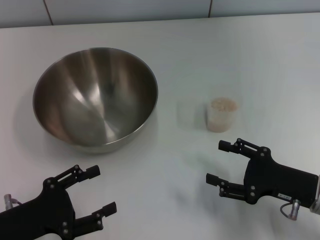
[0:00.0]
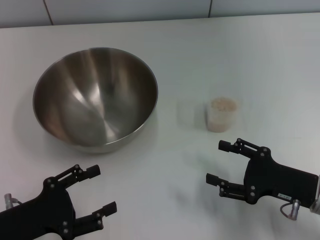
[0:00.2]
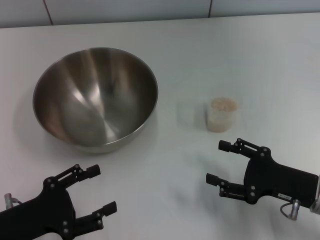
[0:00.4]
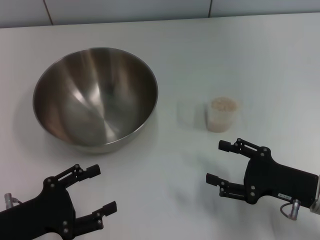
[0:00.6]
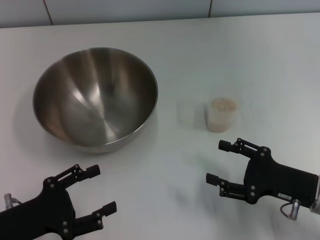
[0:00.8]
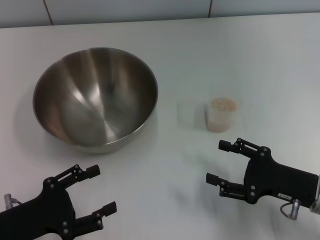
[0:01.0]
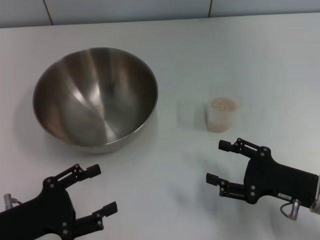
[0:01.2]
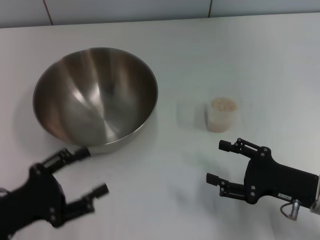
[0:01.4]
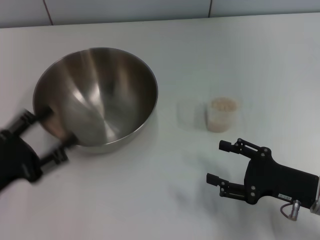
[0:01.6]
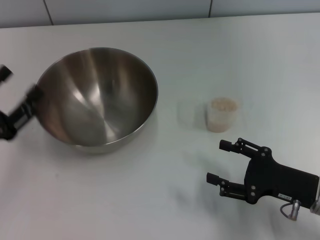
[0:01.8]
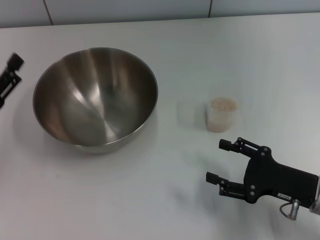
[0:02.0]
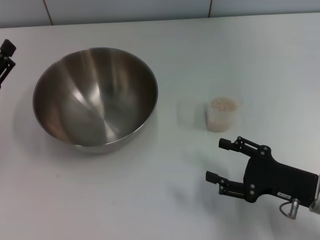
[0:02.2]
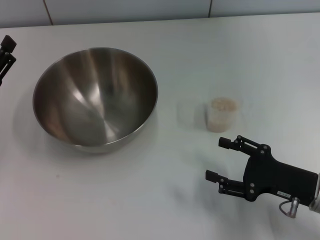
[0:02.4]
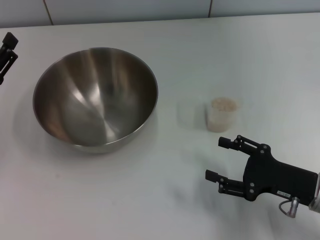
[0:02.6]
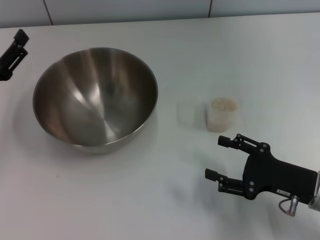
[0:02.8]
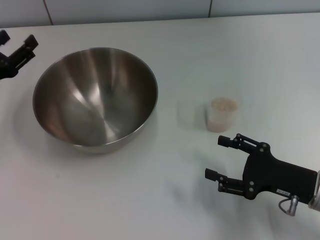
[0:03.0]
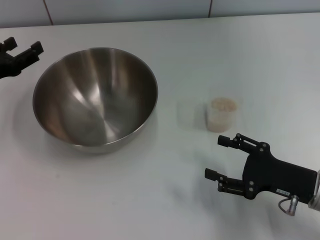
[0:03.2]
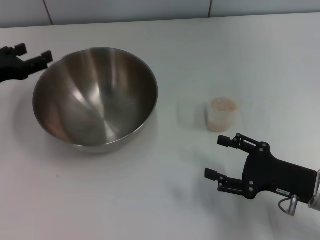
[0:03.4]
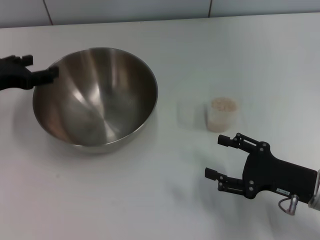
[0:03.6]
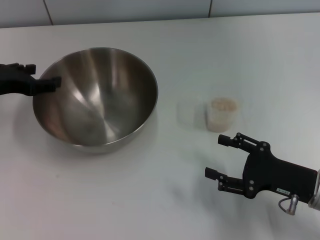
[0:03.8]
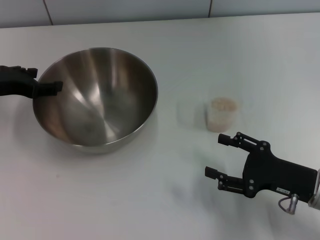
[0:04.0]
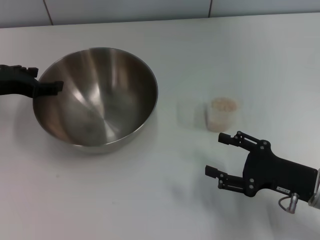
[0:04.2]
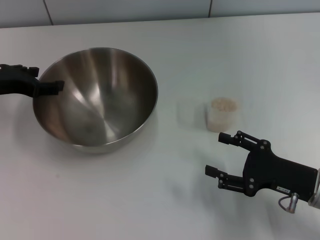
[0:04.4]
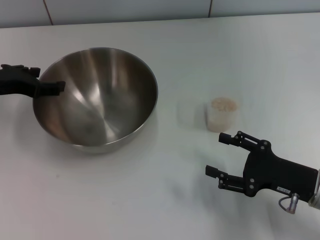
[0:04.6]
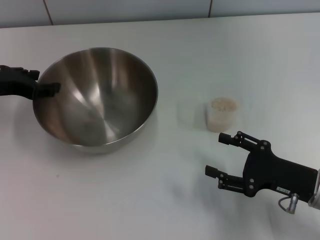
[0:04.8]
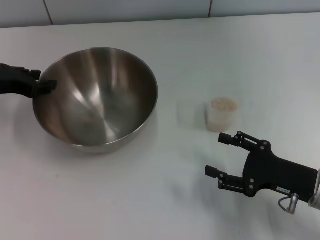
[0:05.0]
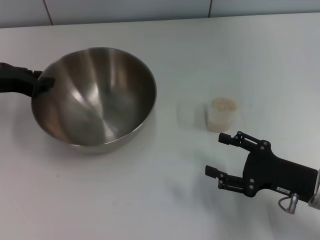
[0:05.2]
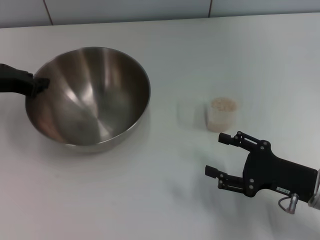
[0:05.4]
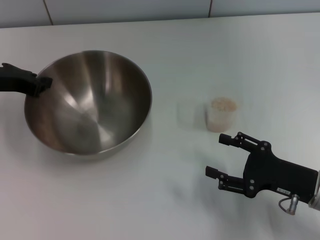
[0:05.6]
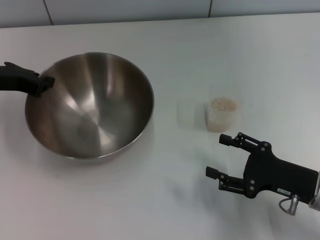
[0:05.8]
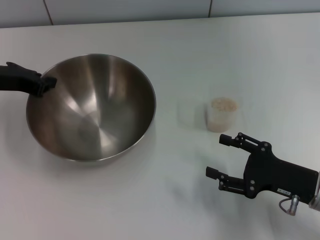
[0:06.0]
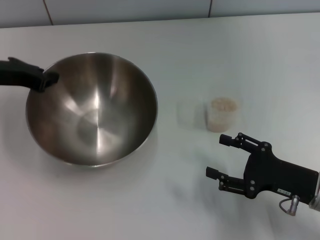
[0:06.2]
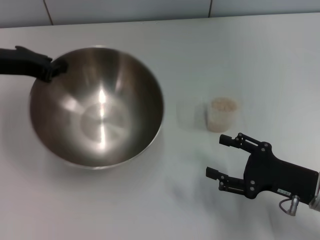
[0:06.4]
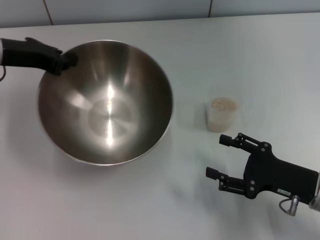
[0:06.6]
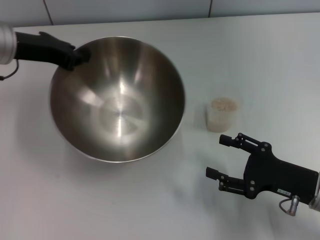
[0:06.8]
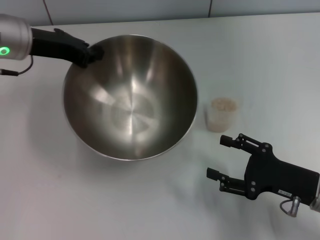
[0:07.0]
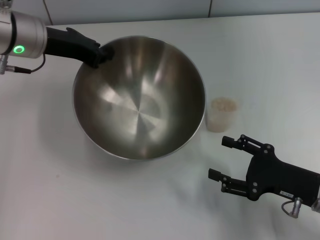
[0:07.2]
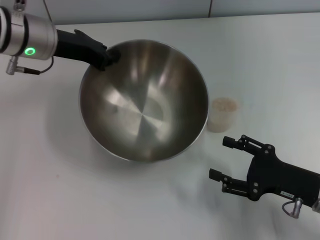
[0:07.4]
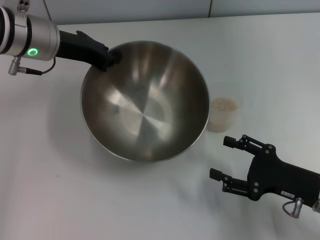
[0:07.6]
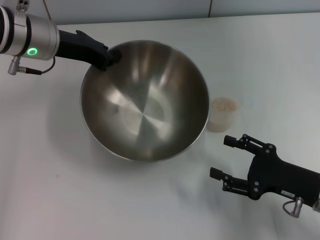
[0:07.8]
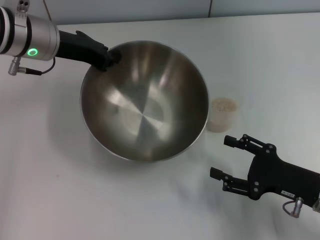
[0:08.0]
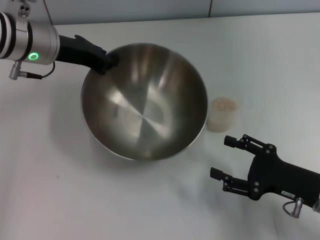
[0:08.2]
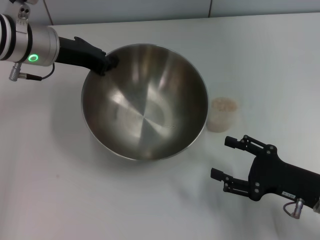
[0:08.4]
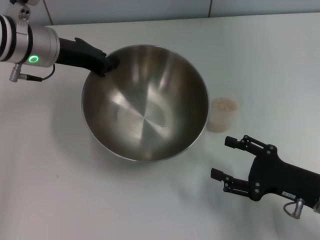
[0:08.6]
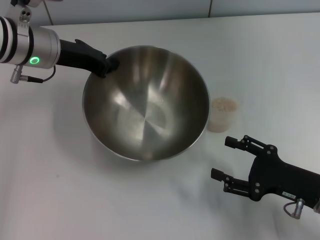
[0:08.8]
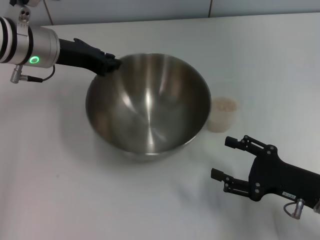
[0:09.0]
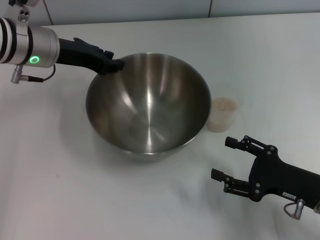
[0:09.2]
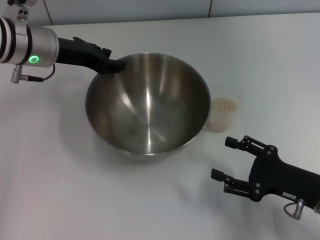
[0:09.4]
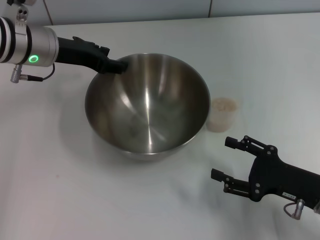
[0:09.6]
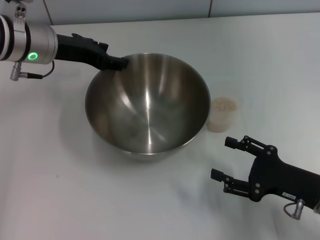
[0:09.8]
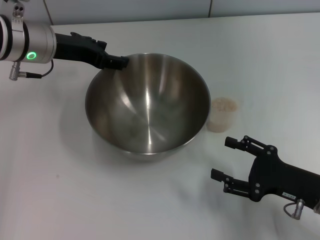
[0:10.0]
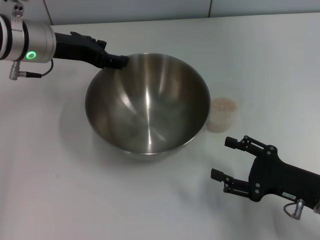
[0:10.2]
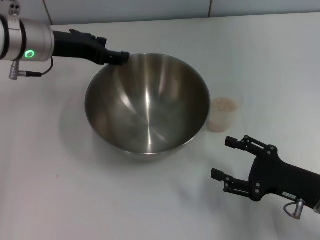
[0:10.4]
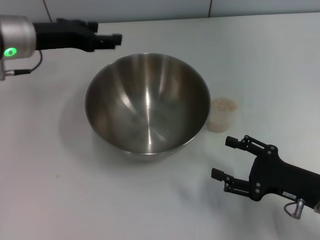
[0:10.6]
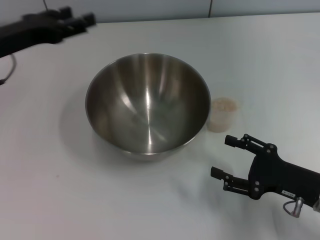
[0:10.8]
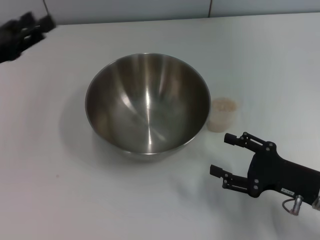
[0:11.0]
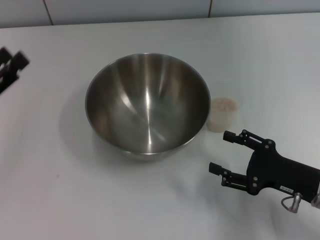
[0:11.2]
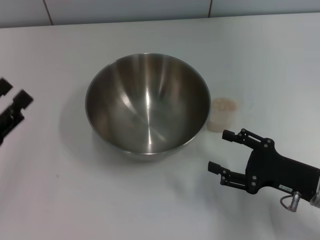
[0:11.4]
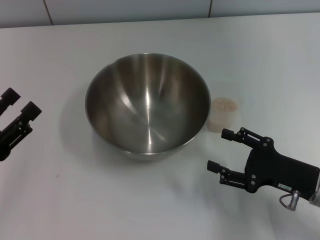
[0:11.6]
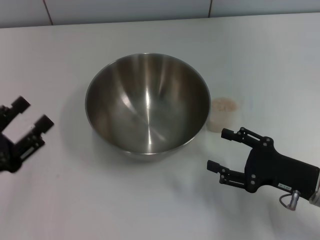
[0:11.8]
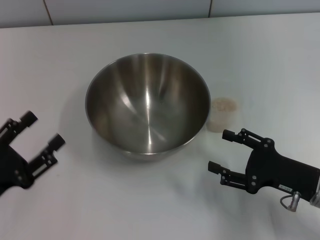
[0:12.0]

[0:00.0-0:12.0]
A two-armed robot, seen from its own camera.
Task of the whole recording: Place the bowl in the middle of the table with one hand and pour the rice from the grain cup into it with the other hand.
Step, 0:00.0 to 0:06.4: Pick up the bowl with the left gripper.
Step, 0:06.6 to 0:10.6: Place the bowl in the center of view with the left gripper.
0:00.0 to 0:01.6: The grippers stay close to where they were, moving slightly.
0:01.6 to 0:03.0: The left gripper heads forward, covering about 15 cm.
0:03.0 to 0:04.4: The left gripper changes place by some 5 cm.
0:04.4 to 0:06.0: The left gripper closes up.
0:06.0 to 0:07.6: The left gripper travels to the right by about 10 cm.
0:07.6 to 0:09.0: There are only small adjustments of the grippers.
0:09.0 to 0:10.4: The left gripper opens up.
0:10.4 to 0:12.0: The left gripper heads backward, downward and to the left, covering approximately 30 cm.

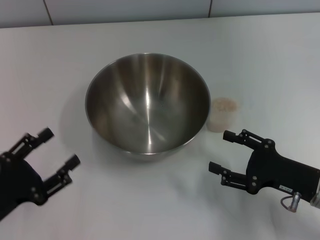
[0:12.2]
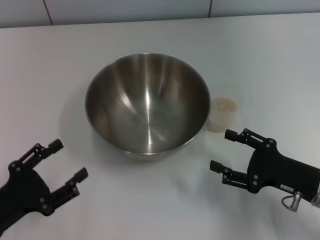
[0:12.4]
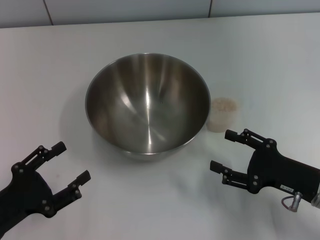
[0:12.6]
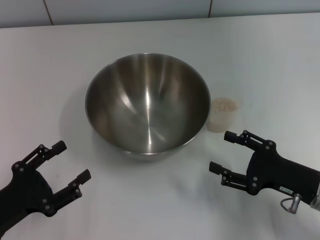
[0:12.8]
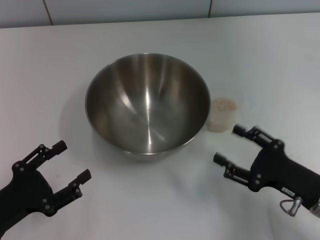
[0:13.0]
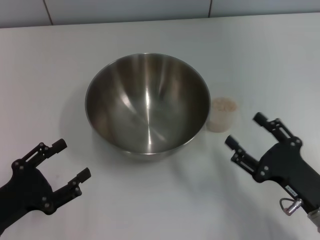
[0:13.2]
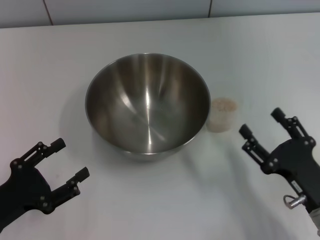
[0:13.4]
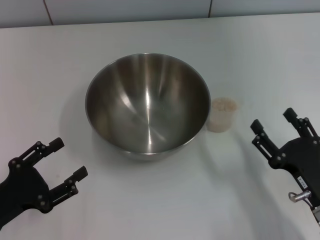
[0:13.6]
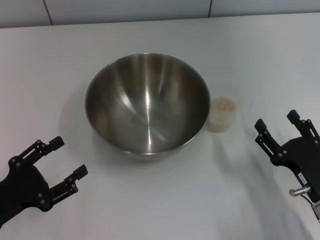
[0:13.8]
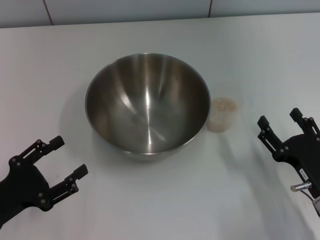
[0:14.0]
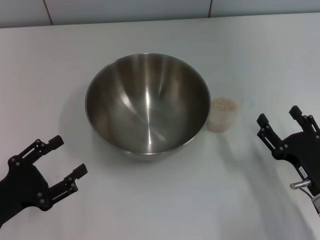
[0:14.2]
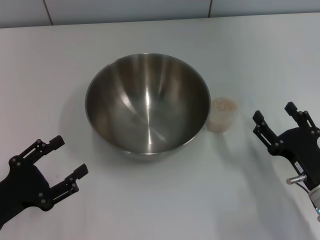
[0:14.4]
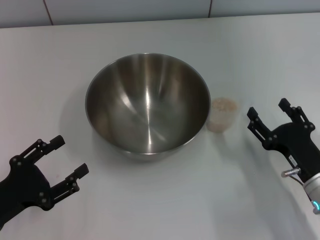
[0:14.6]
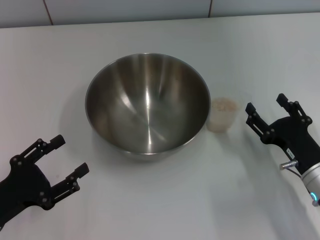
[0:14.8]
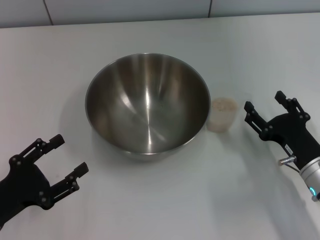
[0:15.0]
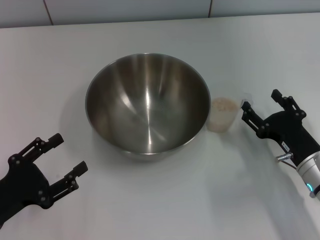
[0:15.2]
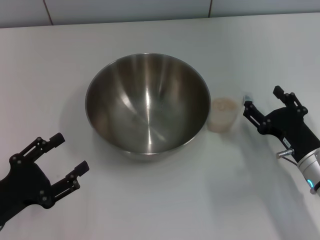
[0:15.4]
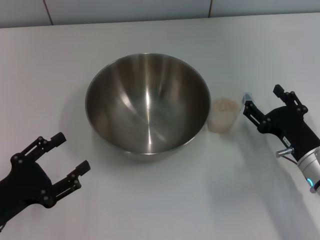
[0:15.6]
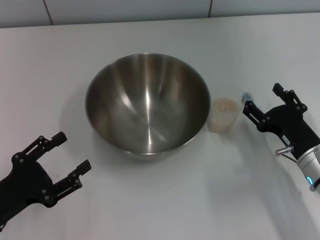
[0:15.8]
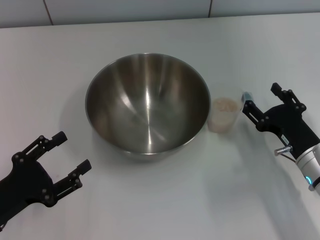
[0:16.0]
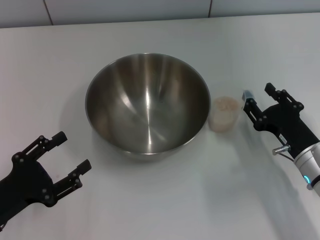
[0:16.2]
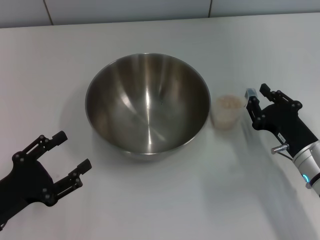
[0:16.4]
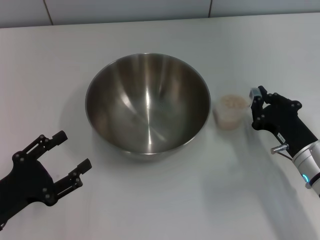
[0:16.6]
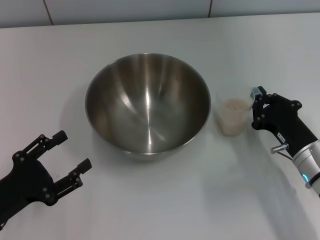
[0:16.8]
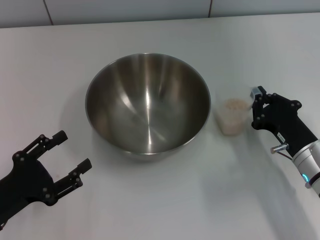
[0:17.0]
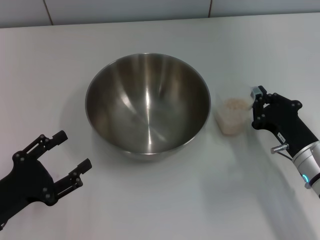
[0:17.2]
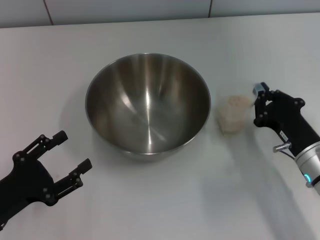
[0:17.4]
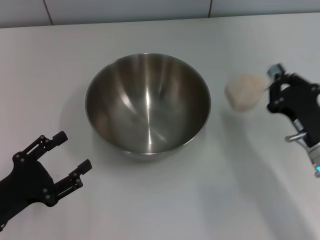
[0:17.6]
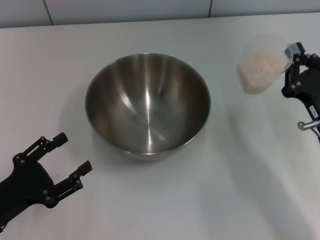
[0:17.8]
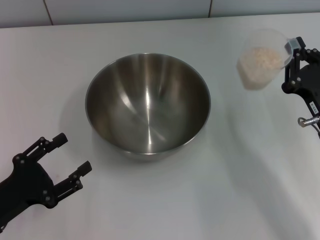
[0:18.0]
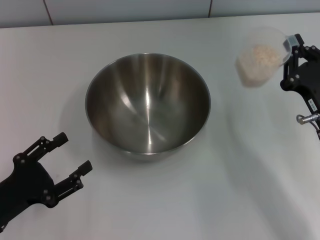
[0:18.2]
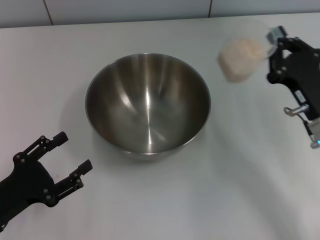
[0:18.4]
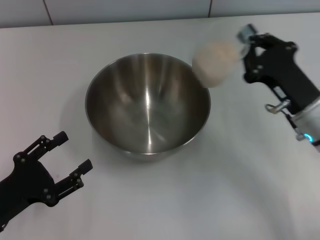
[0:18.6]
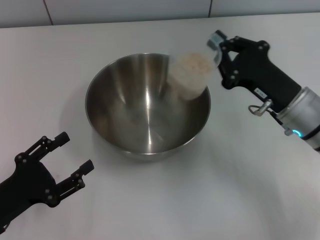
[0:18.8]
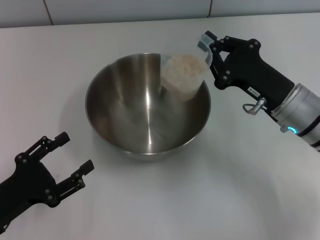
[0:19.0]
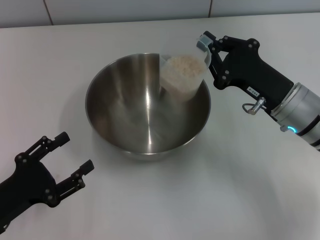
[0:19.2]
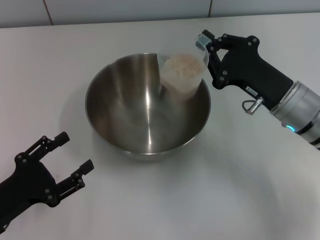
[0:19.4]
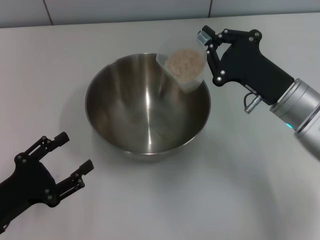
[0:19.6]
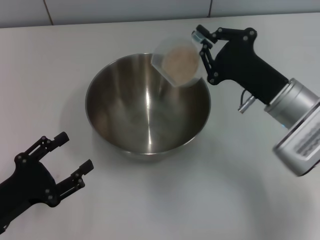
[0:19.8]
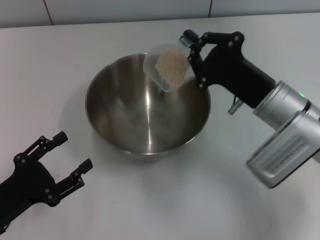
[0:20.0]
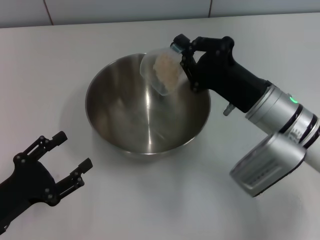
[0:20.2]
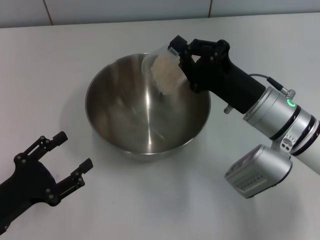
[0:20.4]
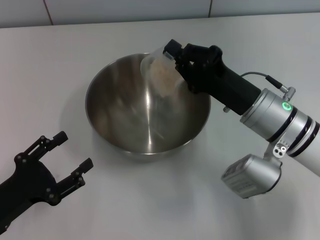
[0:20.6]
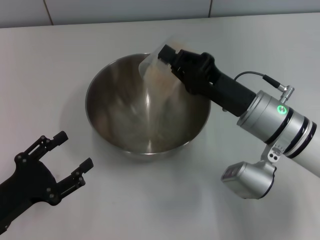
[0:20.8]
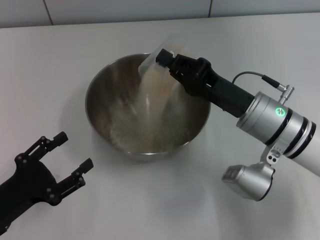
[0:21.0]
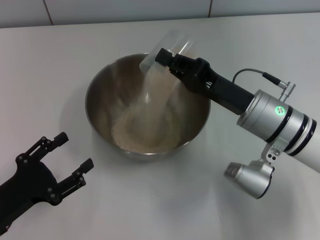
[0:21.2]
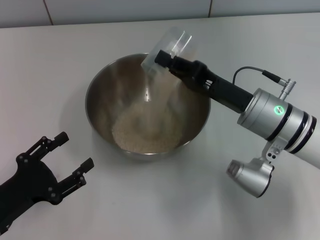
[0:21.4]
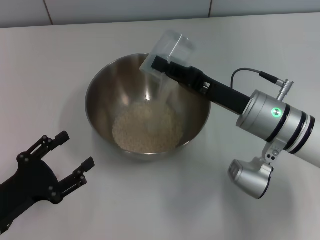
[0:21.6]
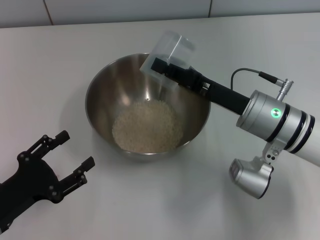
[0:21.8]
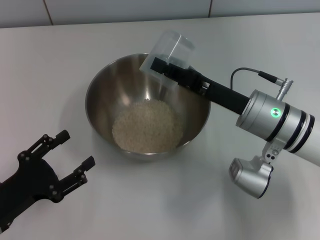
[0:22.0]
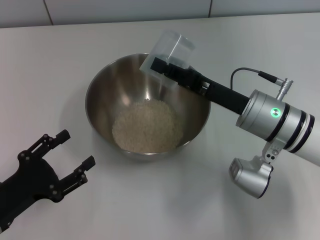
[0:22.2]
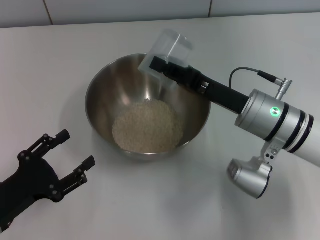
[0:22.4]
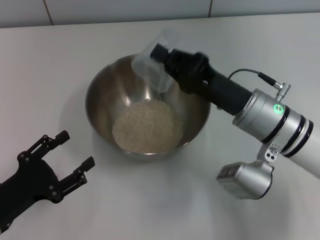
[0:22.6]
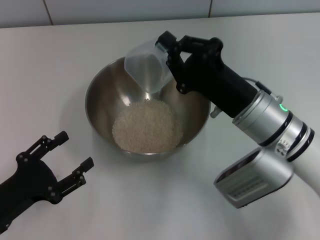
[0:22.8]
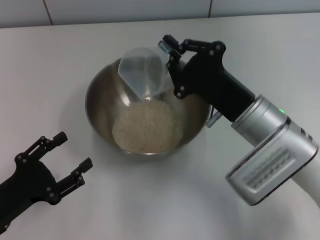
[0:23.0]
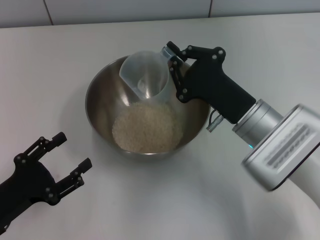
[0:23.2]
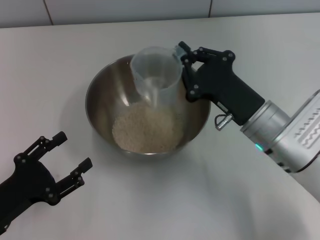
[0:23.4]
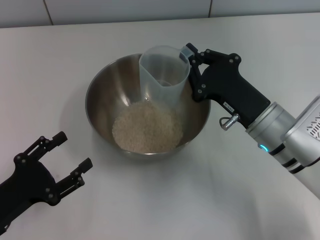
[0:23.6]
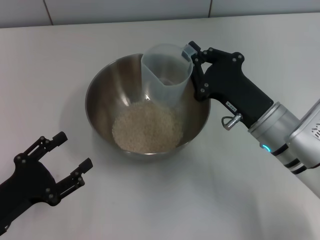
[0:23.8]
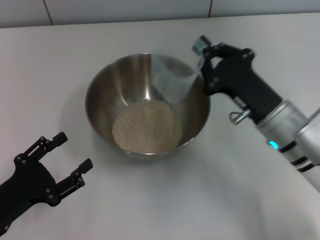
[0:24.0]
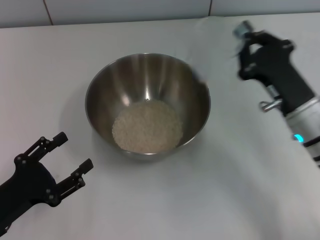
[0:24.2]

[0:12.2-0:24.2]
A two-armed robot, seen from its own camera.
Task of the whole recording: Place the bowl in the middle of the table with one hand and pour the rice from the grain cup into it with the other hand.
Step, 0:12.2 to 0:17.8: Pick up the cup with rice in it with the right gripper.
Step, 0:18.2 to 0:24.0: Pour the rice from the cup into the bowl with the right gripper.
0:12.2 to 0:13.8: The right gripper moves approximately 5 cm.
0:13.8 to 0:15.2: The right gripper travels forward by about 5 cm.
0:15.2 to 0:16.6: The right gripper closes its fingers.
0:16.6 to 0:18.2: The right gripper closes.
0:18.2 to 0:19.8: The right gripper travels to the left and forward by approximately 10 cm.
0:21.2 to 0:22.6: There are only small adjustments of the grippers.
0:22.6 to 0:24.2: The right gripper is displaced to the right by roughly 5 cm.
